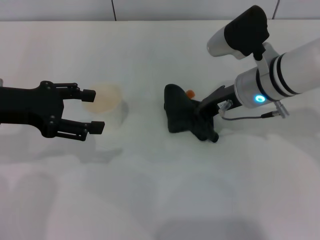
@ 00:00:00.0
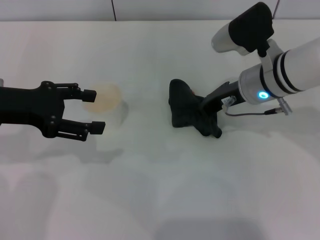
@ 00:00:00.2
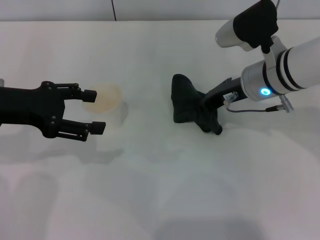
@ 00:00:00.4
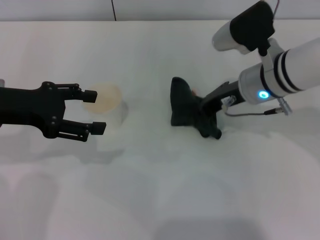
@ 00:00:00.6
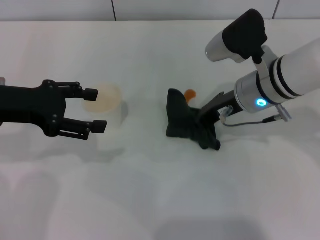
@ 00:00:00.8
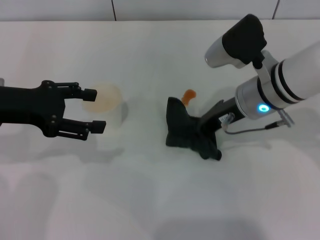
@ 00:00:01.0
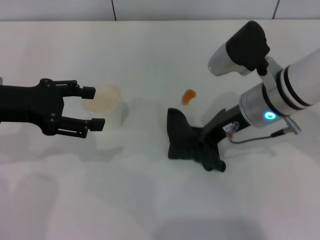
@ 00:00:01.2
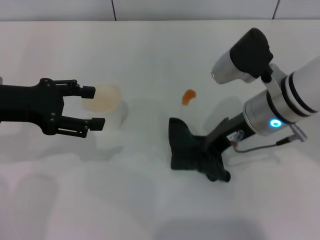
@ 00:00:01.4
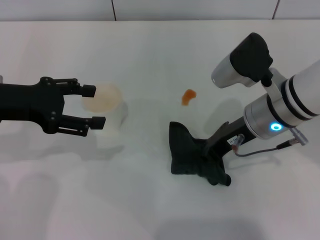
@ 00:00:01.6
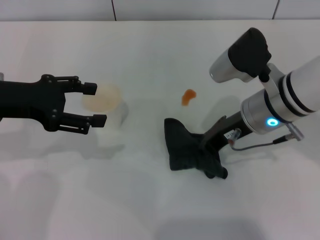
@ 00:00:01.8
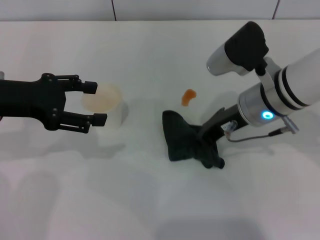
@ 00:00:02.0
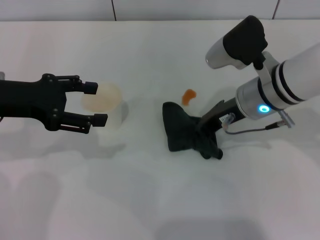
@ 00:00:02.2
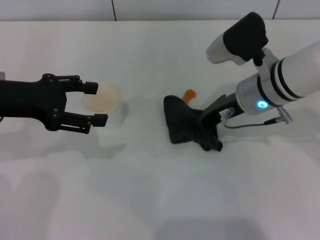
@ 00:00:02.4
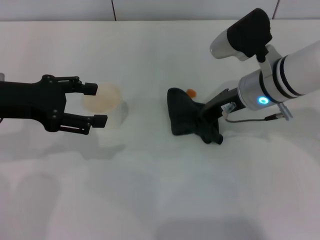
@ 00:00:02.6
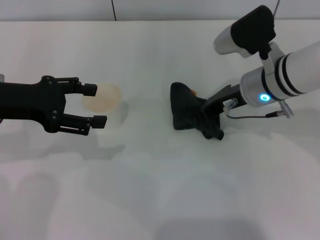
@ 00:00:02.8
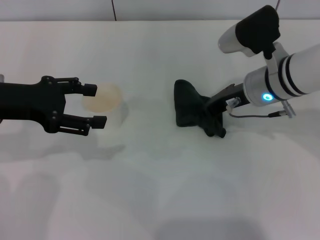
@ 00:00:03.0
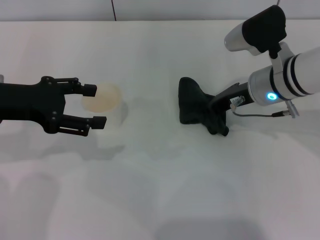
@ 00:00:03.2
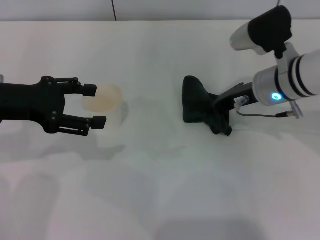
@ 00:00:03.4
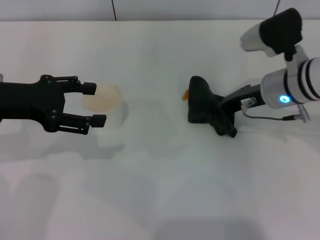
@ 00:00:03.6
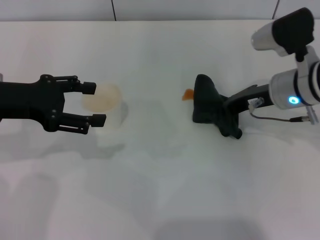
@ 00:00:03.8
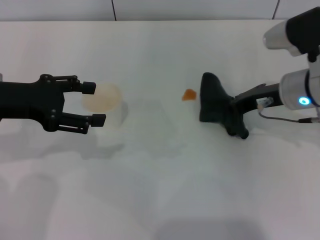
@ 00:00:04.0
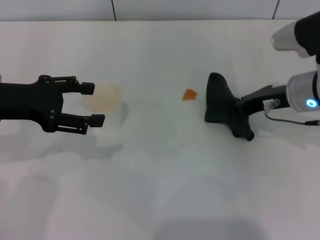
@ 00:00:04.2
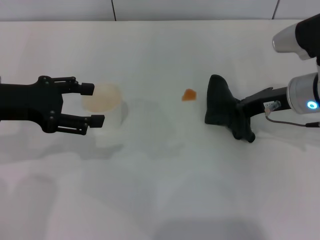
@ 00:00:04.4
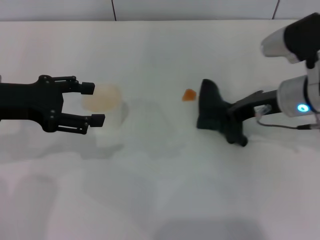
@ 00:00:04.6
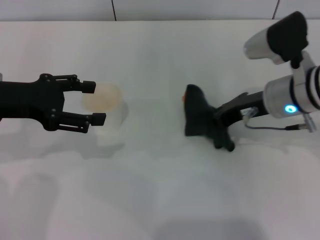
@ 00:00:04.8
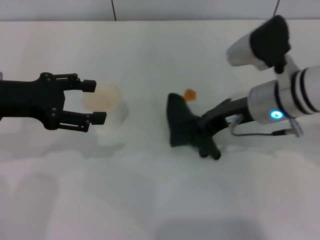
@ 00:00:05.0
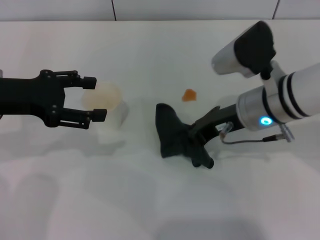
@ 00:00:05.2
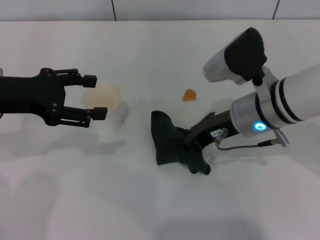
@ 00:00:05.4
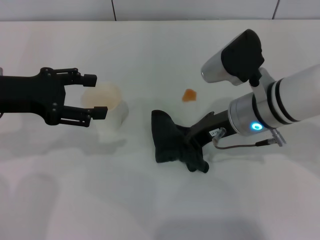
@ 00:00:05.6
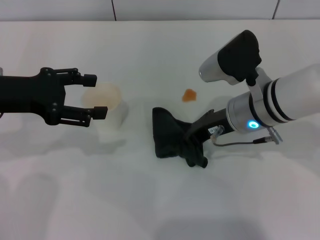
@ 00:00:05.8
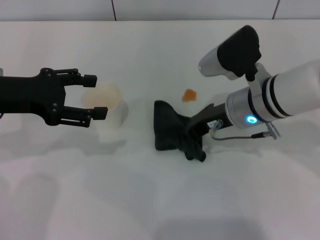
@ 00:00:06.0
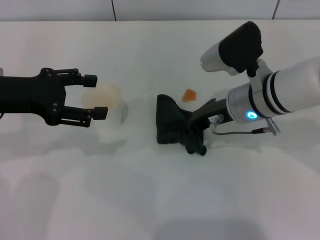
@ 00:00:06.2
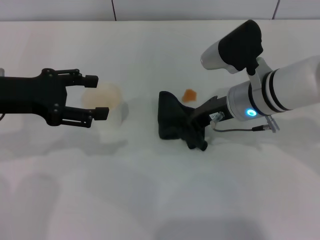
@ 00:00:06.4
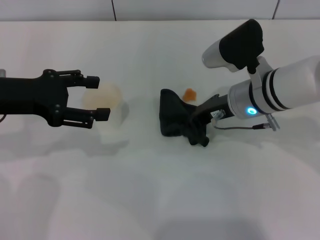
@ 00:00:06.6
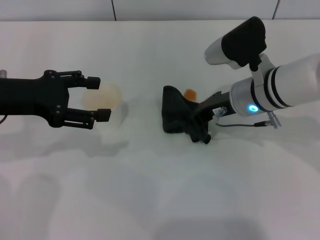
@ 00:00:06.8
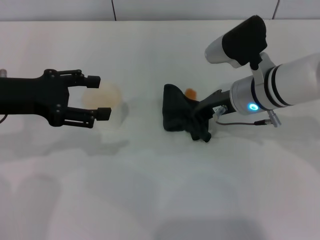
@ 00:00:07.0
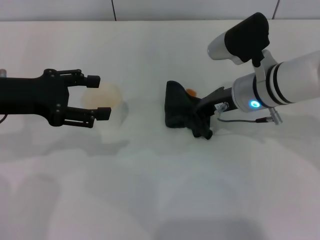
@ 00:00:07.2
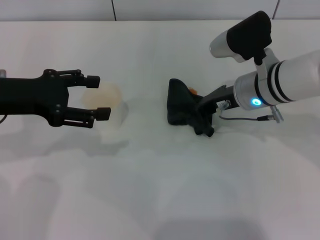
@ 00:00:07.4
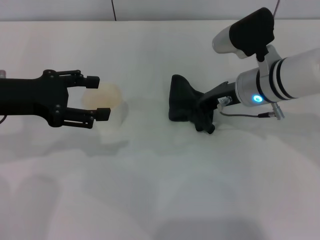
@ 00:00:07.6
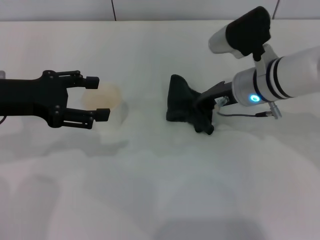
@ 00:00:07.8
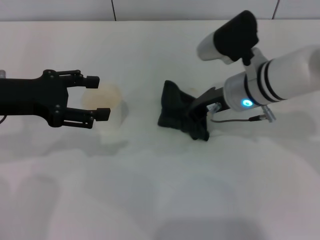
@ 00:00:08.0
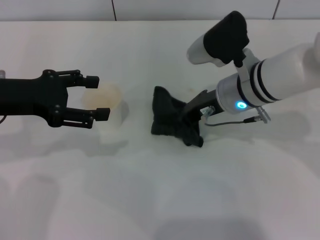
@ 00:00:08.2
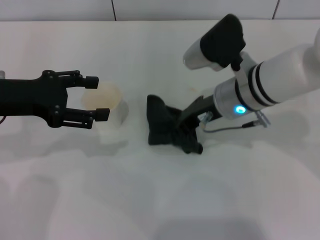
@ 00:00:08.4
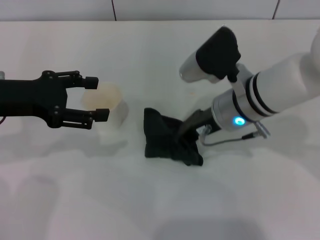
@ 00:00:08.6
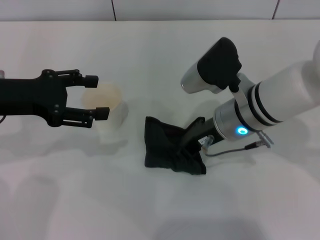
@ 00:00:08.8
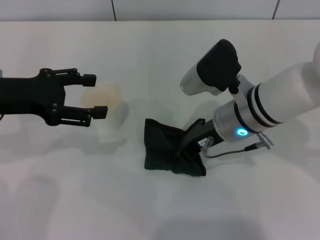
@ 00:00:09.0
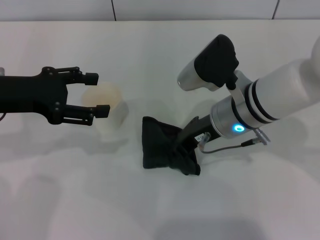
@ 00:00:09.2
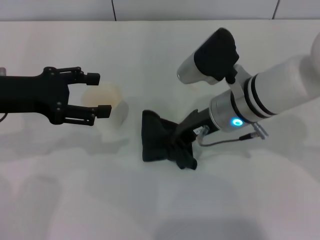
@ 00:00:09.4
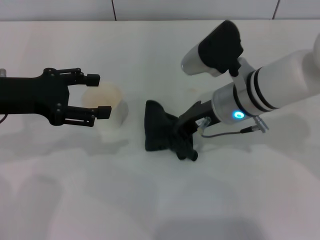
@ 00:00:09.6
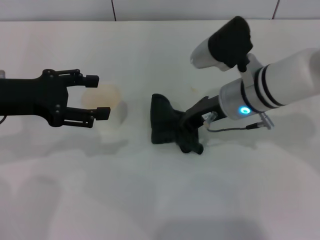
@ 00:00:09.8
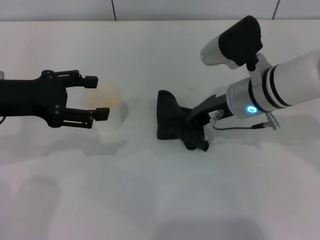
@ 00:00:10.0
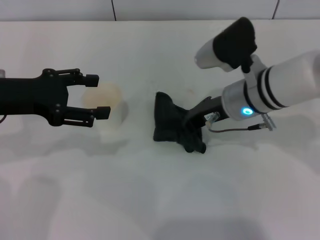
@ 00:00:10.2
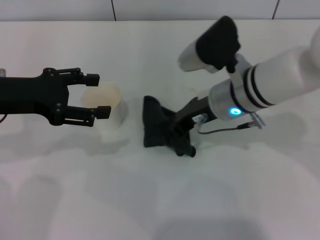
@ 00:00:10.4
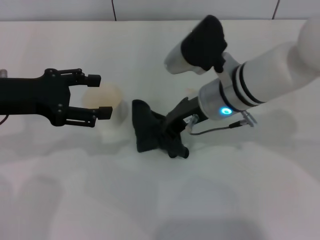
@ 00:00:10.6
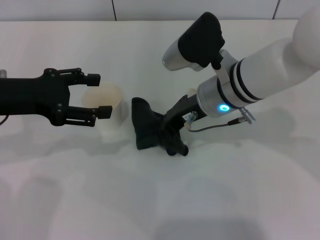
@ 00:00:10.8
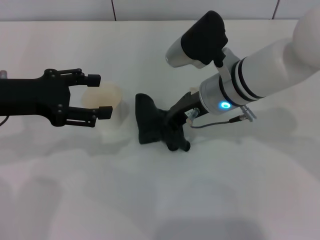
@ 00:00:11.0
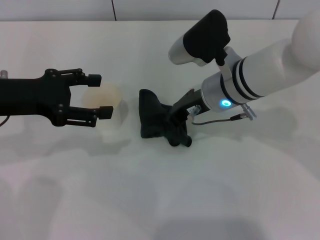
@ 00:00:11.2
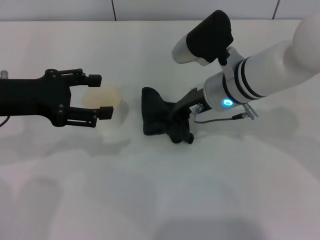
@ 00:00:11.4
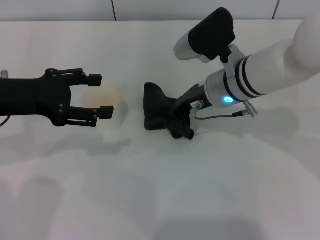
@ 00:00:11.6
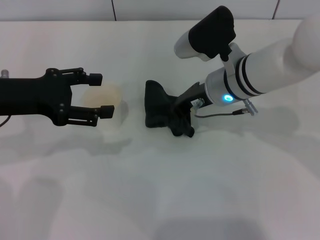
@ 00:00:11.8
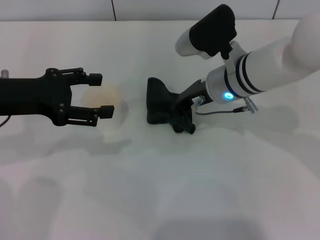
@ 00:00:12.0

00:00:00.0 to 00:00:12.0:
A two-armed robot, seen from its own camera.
00:00:00.0 to 00:00:03.0: The grippers move only a little.
00:00:03.0 to 00:00:04.4: The right gripper travels to the right by roughly 5 cm.
00:00:04.4 to 00:00:06.0: The right gripper shifts roughly 10 cm to the left.
00:00:06.0 to 00:00:07.6: There are only small adjustments of the grippers.
00:00:07.6 to 00:00:09.0: The right gripper ends up roughly 5 cm from where it was.
00:00:09.0 to 00:00:12.0: The grippers make only small movements.

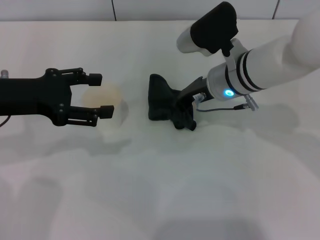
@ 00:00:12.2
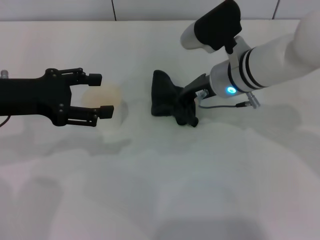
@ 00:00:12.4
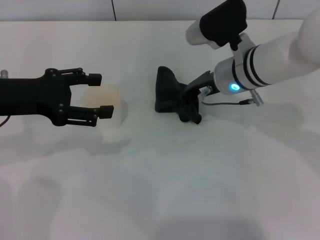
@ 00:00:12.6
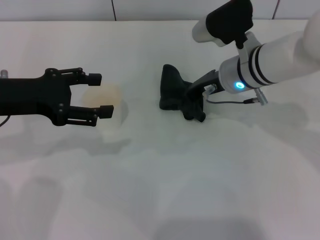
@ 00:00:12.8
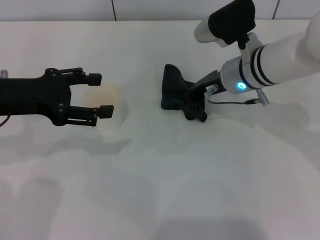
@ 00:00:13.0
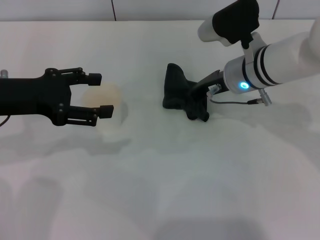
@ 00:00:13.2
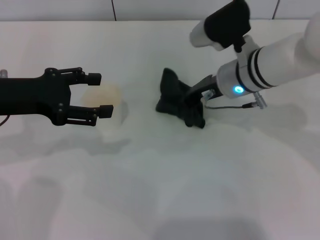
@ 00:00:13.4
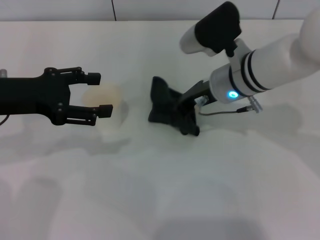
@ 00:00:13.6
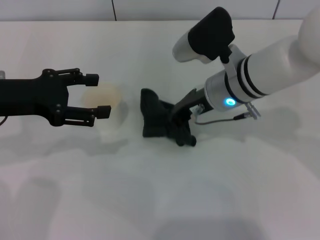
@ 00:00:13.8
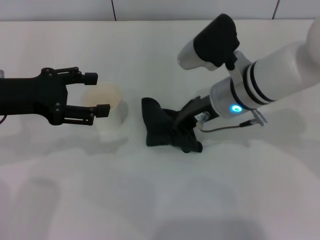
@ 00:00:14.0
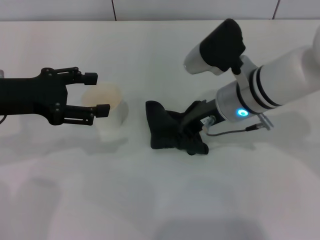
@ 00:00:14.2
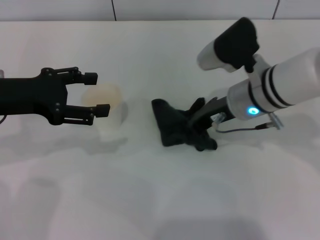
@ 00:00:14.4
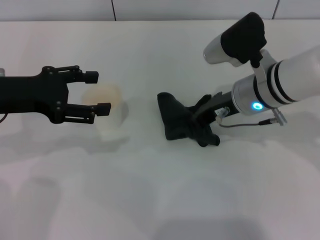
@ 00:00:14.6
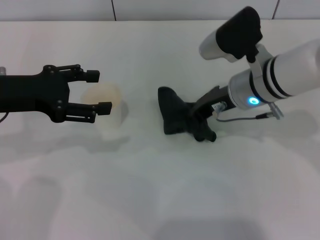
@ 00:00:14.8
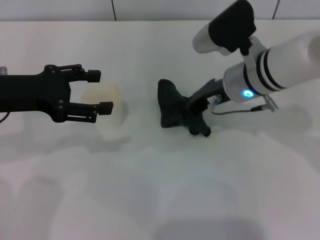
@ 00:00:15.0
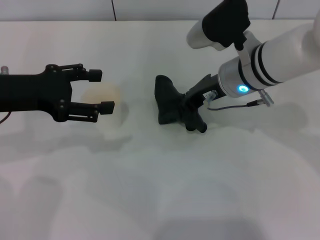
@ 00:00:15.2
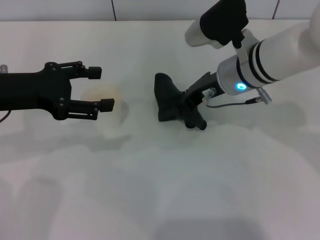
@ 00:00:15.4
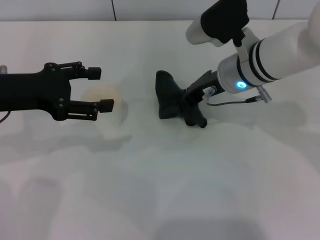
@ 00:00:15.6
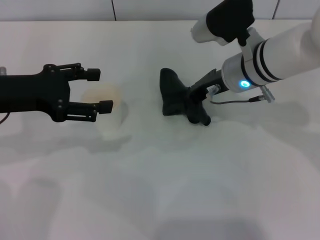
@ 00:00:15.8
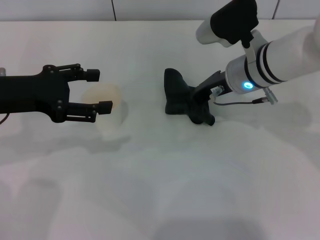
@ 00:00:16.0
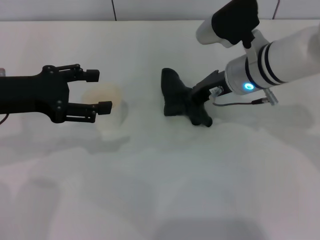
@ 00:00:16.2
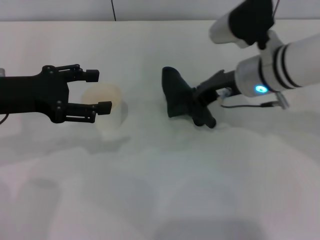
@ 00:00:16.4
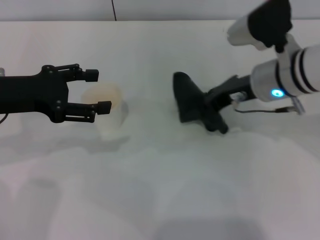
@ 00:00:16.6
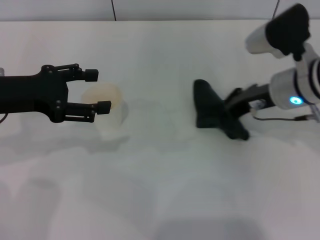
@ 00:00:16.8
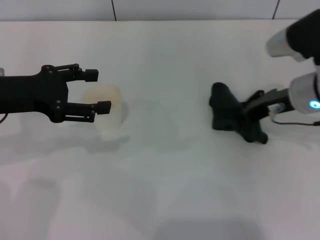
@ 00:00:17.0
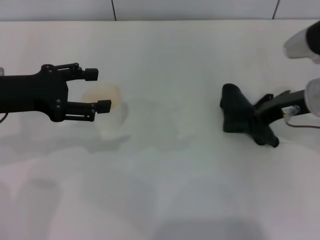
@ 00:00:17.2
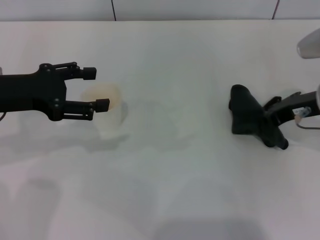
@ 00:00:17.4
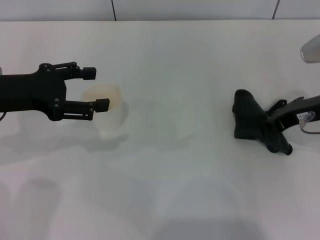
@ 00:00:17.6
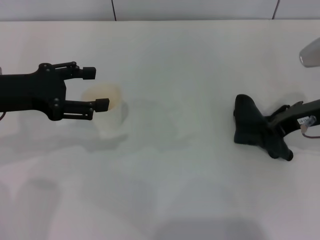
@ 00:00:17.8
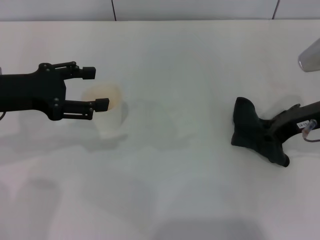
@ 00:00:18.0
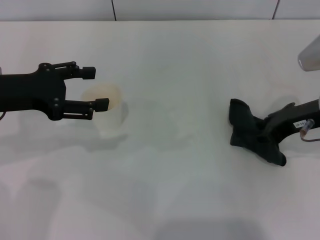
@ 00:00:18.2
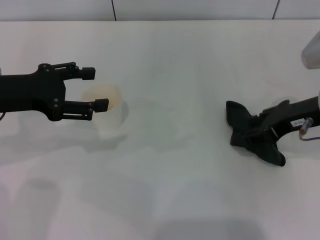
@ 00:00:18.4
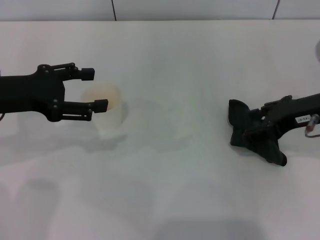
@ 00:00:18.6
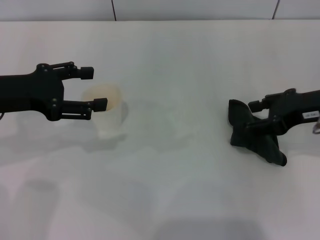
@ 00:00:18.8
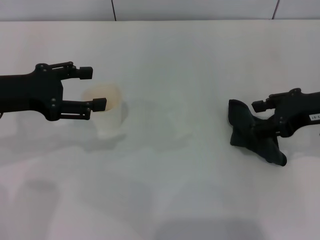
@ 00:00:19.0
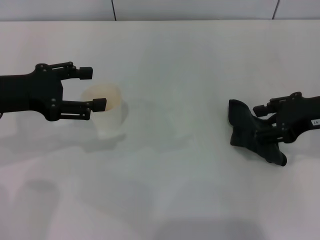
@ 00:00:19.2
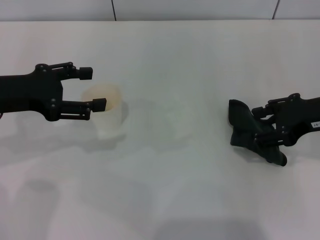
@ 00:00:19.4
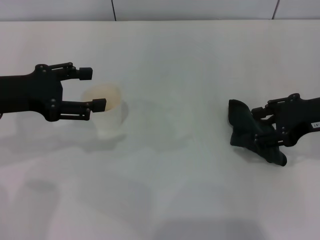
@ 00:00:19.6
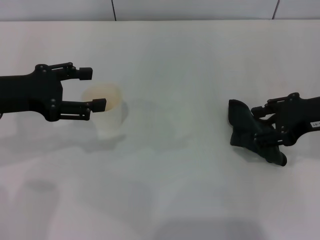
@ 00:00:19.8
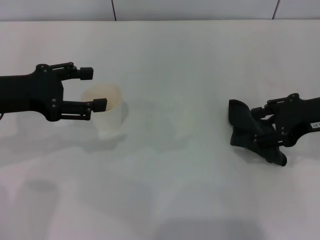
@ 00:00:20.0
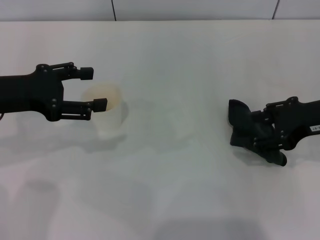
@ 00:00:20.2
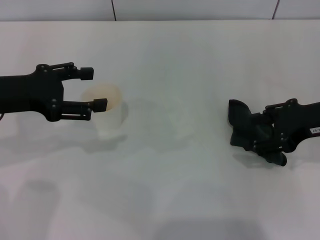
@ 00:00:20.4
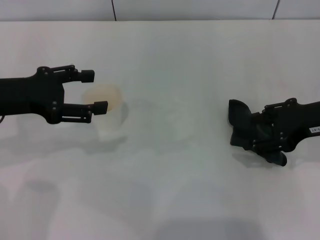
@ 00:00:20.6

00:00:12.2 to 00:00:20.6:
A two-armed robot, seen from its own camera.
Step, 00:00:12.6 to 00:00:19.0: Place the rag on the table with the right gripper.
00:00:12.2 to 00:00:16.4: The grippers stay close to where they were, moving slightly.
00:00:16.4 to 00:00:17.8: The right gripper heads to the right, covering about 10 cm.
00:00:17.8 to 00:00:19.2: The right gripper opens.
00:00:19.2 to 00:00:20.6: The two grippers keep their place.
